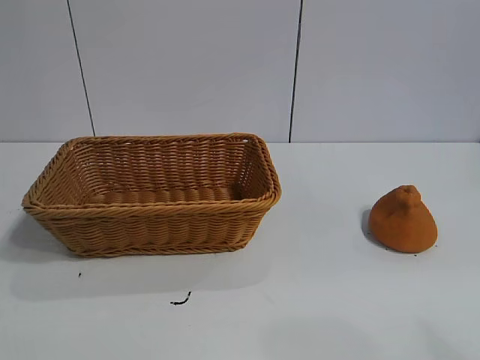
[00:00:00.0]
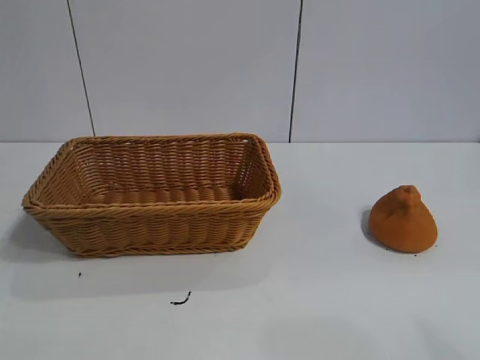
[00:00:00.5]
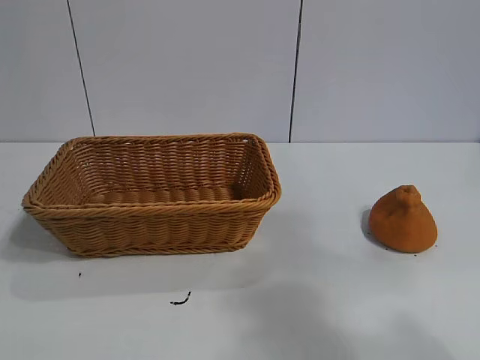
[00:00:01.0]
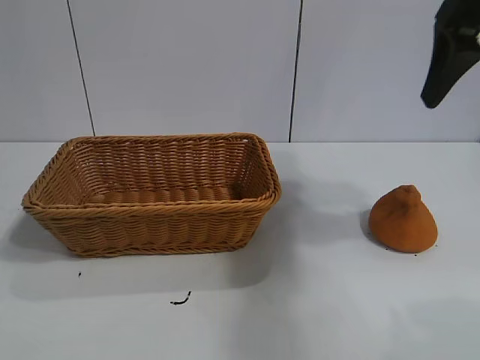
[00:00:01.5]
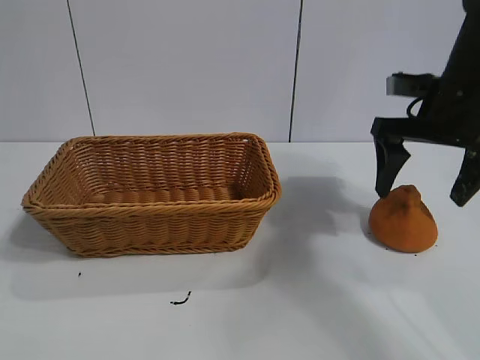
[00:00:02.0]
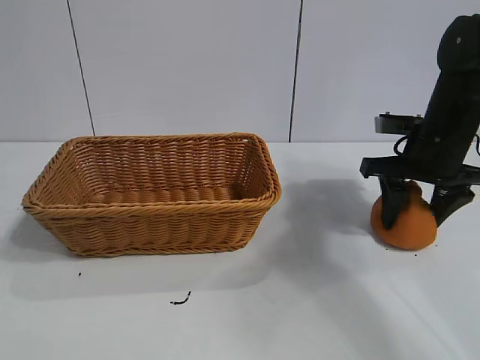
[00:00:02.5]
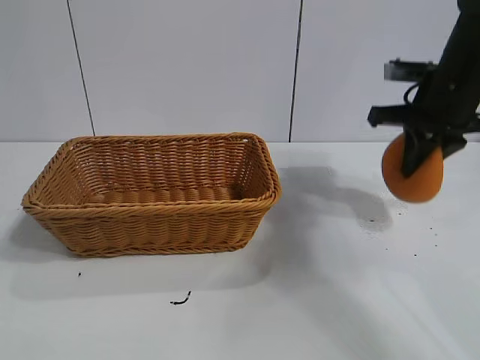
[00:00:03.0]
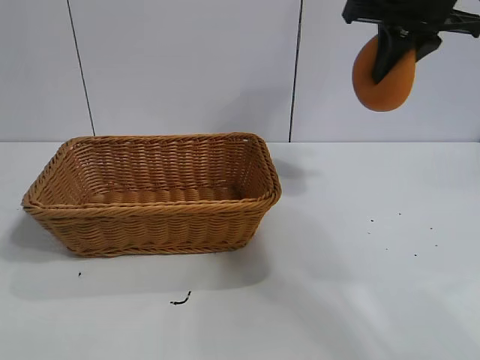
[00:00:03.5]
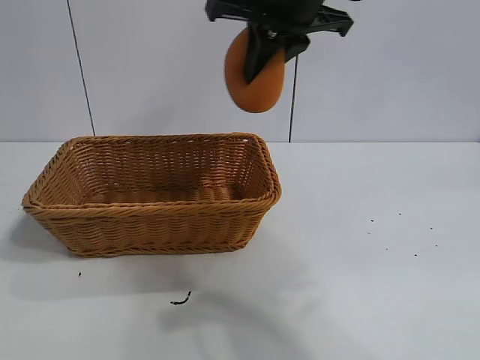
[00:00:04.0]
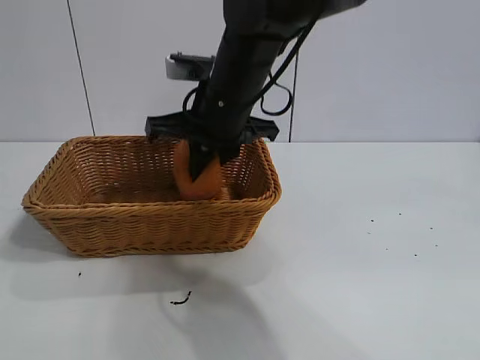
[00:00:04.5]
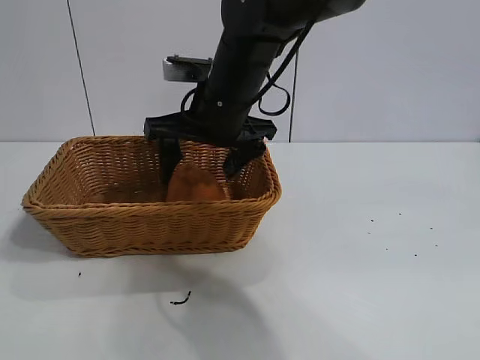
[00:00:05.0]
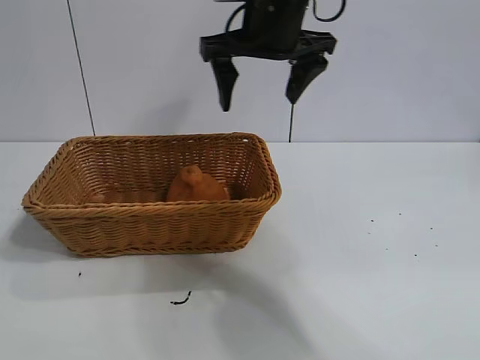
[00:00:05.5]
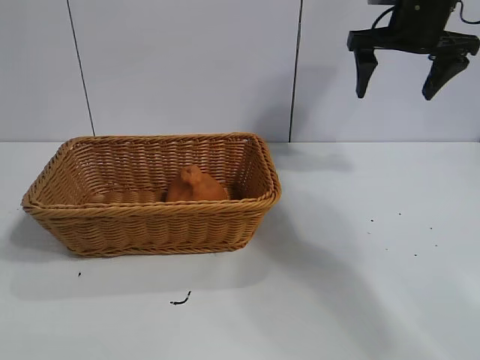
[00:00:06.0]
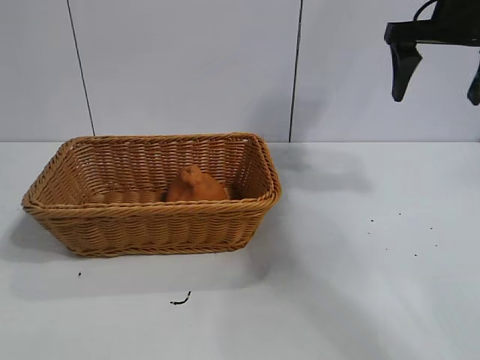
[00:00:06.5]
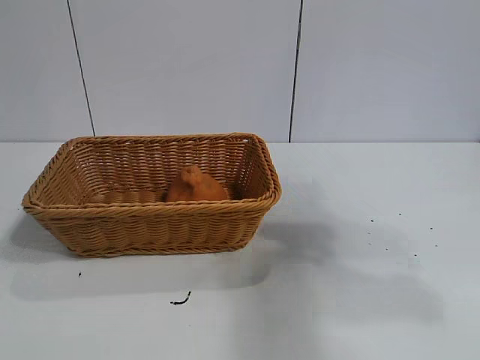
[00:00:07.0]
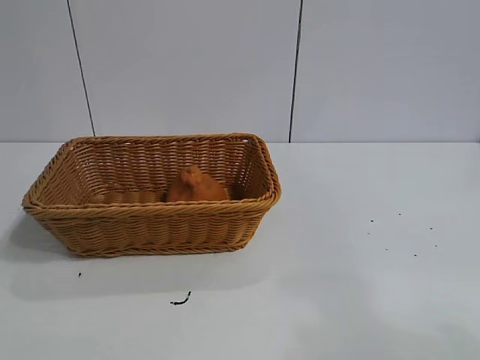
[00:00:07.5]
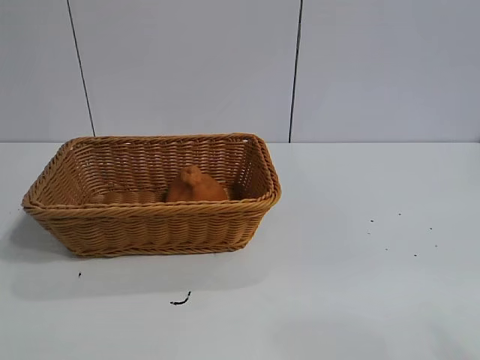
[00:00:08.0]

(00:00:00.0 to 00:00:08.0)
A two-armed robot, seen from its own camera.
Task of the whole recording: pick up the orange and put it into the basket.
Step, 00:00:01.0 - 00:00:02.5: Grasp the orange with right gripper.
Step, 00:00:03.0 - 00:00:05.0: Place the orange in the basket with right gripper.
